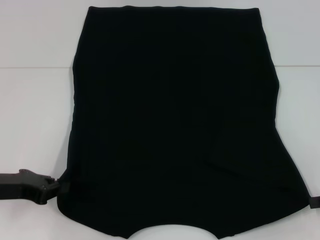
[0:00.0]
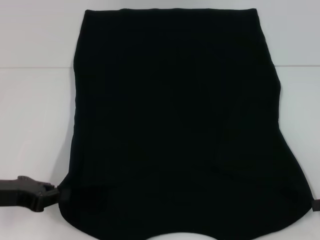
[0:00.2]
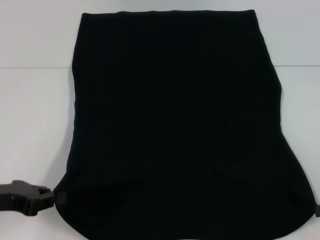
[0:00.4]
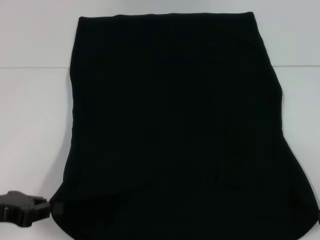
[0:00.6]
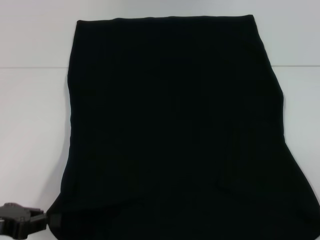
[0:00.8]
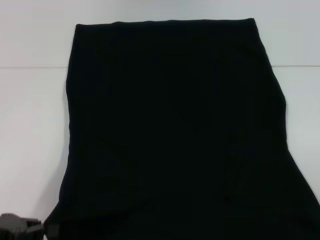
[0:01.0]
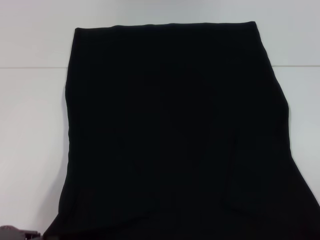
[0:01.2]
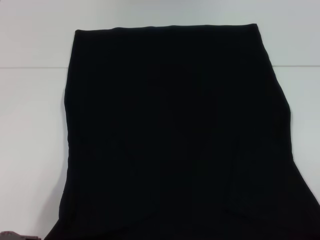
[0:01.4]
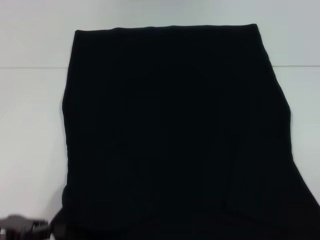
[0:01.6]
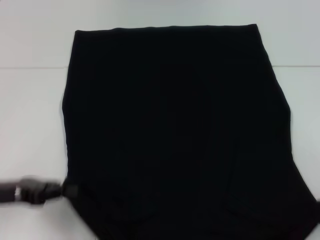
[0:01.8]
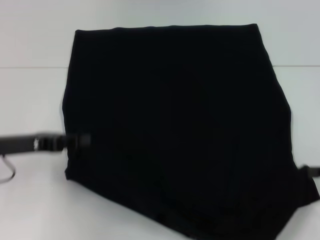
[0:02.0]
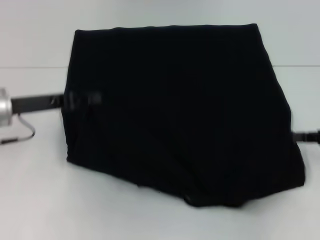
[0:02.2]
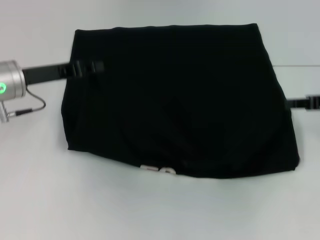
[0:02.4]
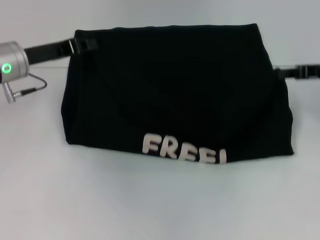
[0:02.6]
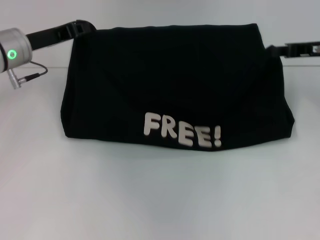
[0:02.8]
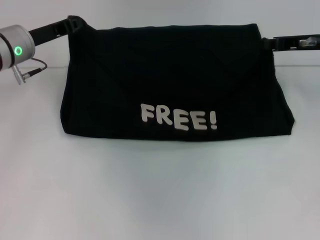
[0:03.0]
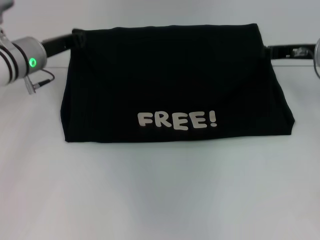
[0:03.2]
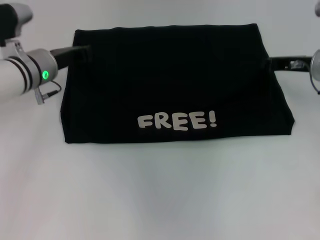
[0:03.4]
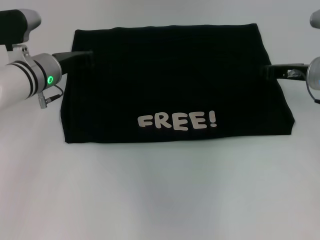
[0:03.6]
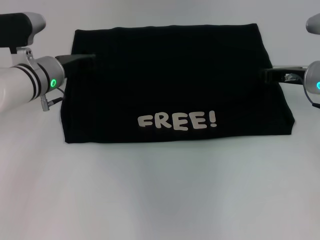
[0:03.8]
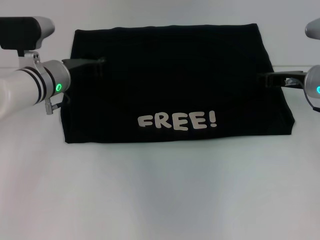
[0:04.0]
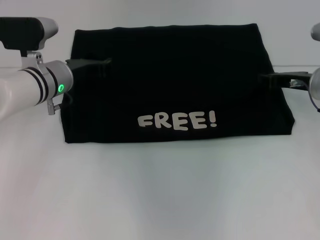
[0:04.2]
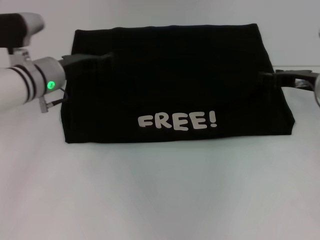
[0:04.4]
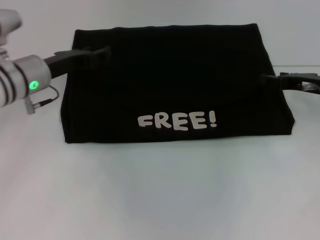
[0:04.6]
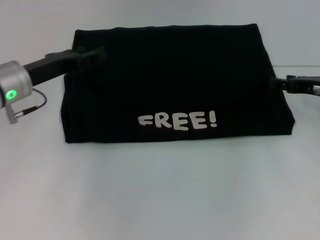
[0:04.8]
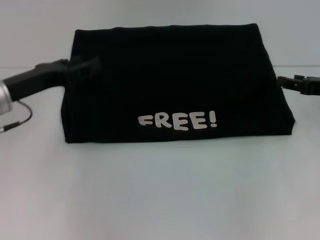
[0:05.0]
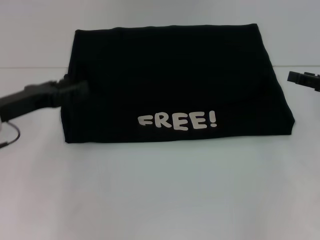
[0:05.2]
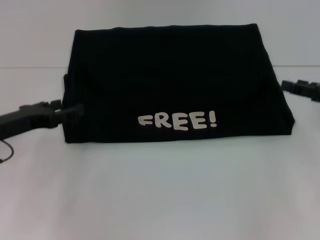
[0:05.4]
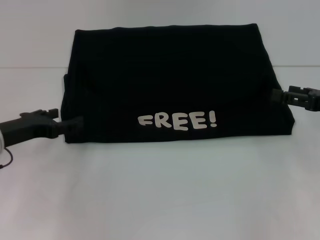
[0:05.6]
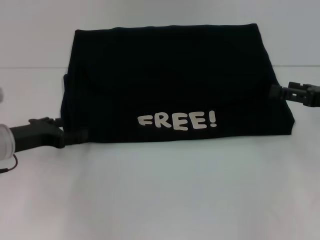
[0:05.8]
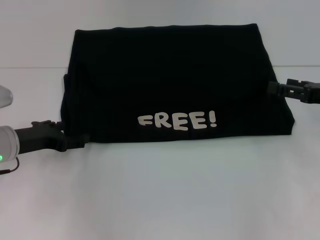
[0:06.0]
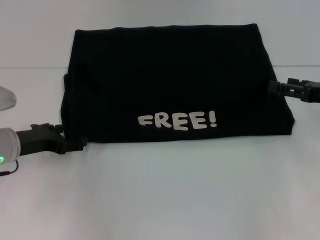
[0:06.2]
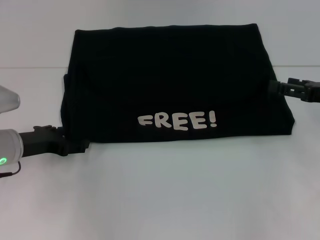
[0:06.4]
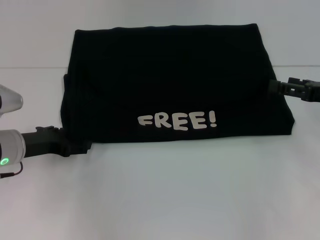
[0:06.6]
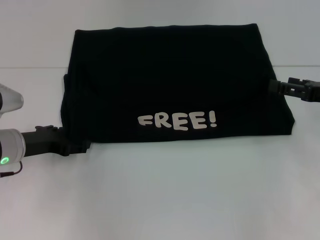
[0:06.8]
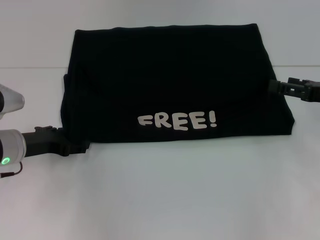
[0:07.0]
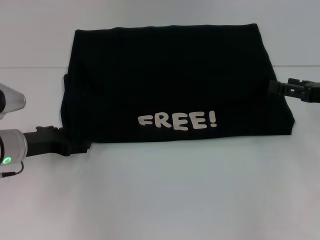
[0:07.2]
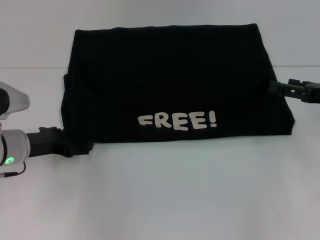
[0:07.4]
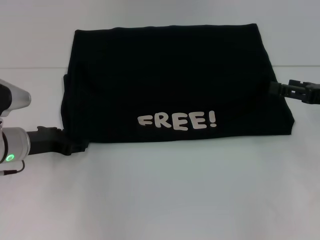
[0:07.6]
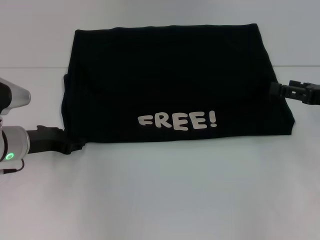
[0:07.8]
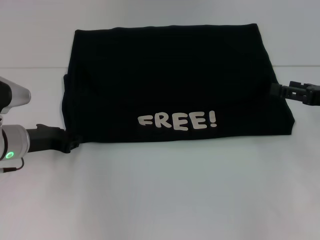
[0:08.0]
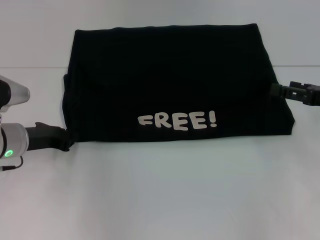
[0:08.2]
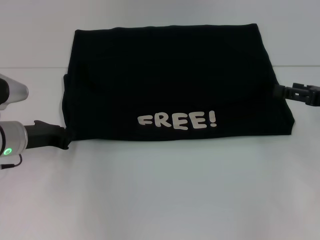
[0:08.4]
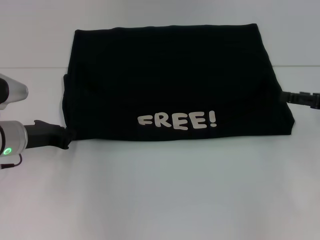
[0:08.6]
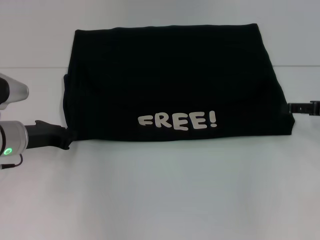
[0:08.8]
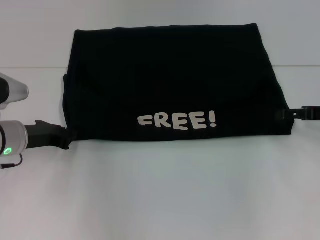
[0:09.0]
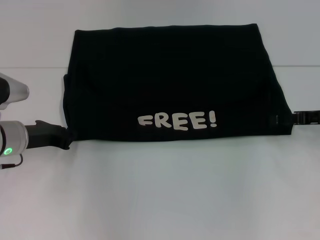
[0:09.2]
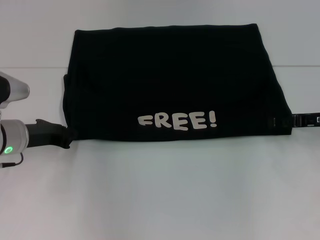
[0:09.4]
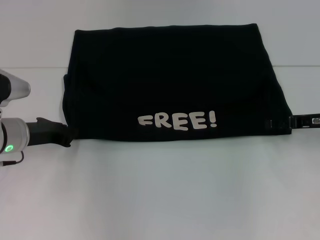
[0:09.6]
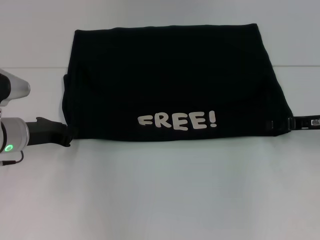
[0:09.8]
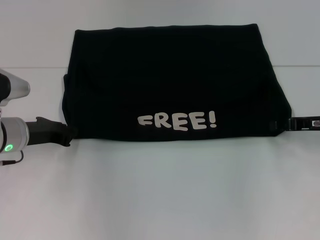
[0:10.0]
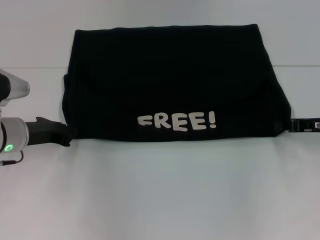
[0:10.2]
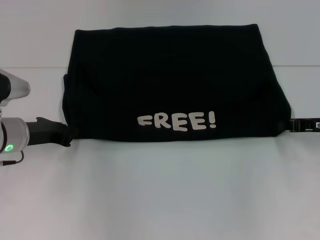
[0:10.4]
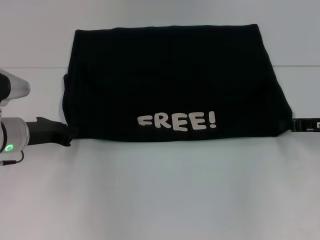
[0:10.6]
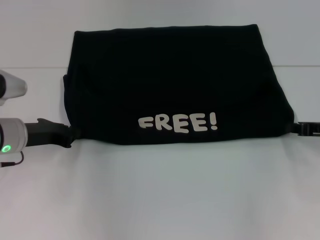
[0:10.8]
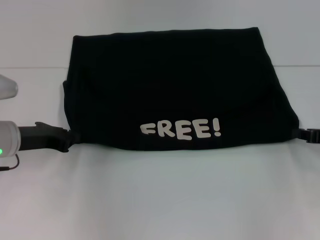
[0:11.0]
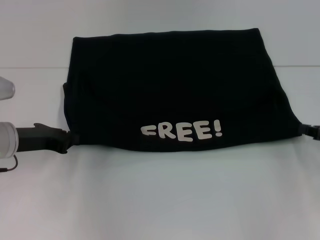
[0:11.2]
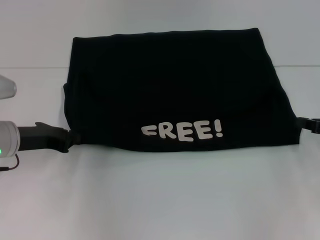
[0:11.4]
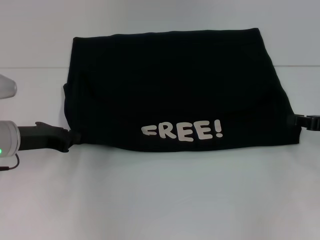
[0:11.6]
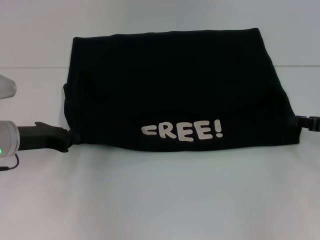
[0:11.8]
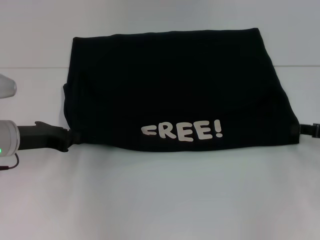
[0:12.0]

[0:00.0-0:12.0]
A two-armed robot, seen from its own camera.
Step, 0.0 to 4.2 s: Fold the clothes with your left hand.
Step, 0.0 to 4.2 s: Fold the clothes with your right hand.
Step, 4.4 to 10.4 s: Pull the clothes with your left hand.
Step, 4.4 to 10.4 s: Pull the clothes with your right hand.
0.0 to 1.6 s: Both grippers travel together backward, some 10 cm.
1.6 to 3.0 s: The right gripper moves forward and to the left, roughly 30 cm. Meanwhile the left gripper goes some 25 cm forward.
3.0 to 4.4 s: The left gripper ends up roughly 5 cm from where it was, and opens. The right gripper shifts roughly 5 cm downward, and opens its fingers.
4.4 to 6.0 s: The left gripper shifts approximately 10 cm backward and to the left, and opens its fingers. The right gripper shifts approximately 10 cm backward and to the right, and opens.
6.0 to 7.6 s: The grippers stay close to where they were, moving slightly.
7.6 to 9.0 s: The left gripper closes.
9.0 to 10.4 s: The right gripper closes up.
10.4 to 12.0 s: The grippers move only a little.

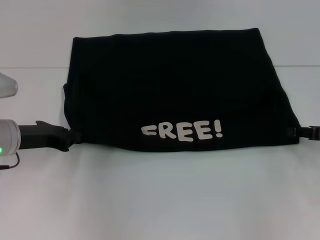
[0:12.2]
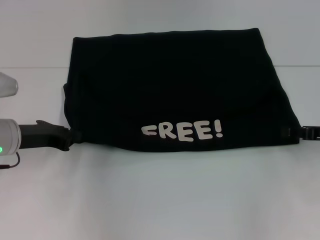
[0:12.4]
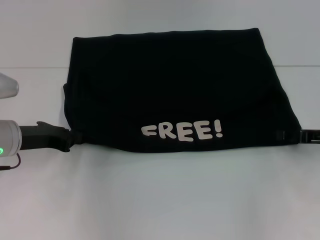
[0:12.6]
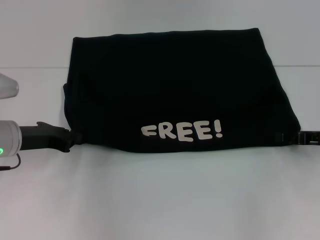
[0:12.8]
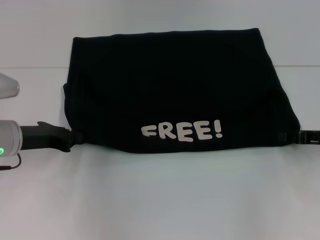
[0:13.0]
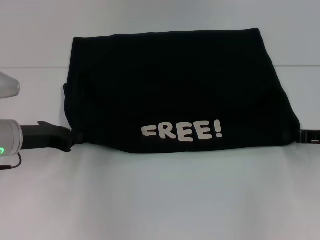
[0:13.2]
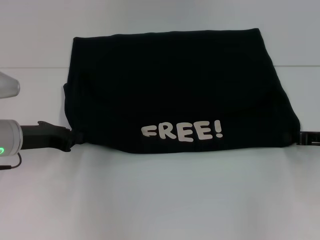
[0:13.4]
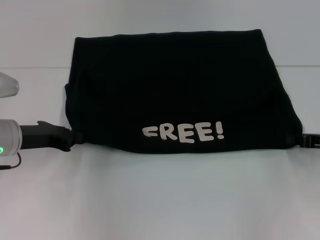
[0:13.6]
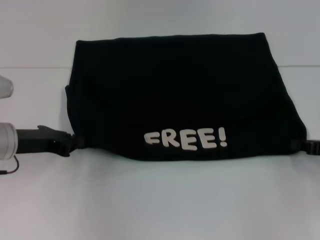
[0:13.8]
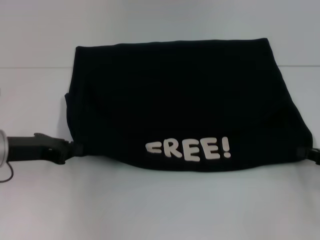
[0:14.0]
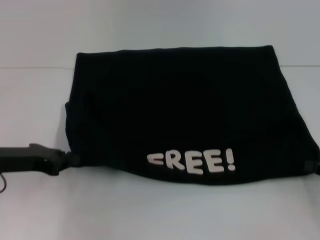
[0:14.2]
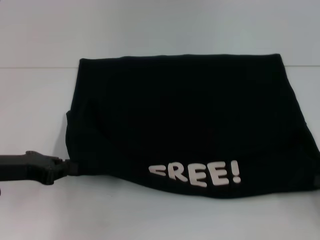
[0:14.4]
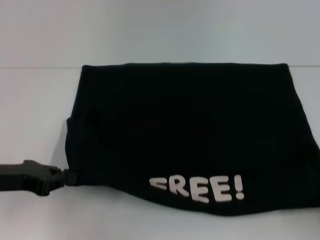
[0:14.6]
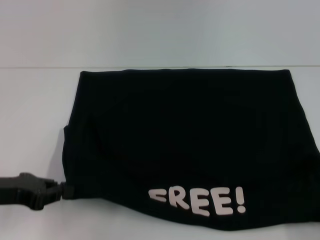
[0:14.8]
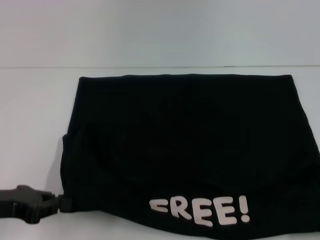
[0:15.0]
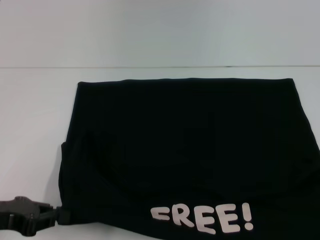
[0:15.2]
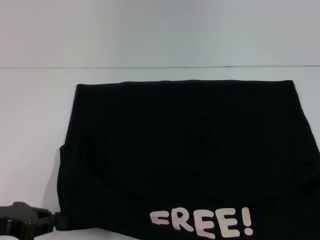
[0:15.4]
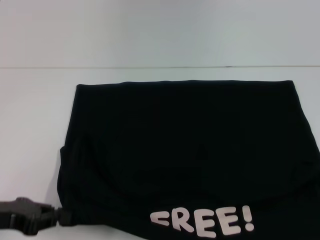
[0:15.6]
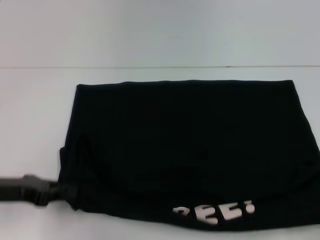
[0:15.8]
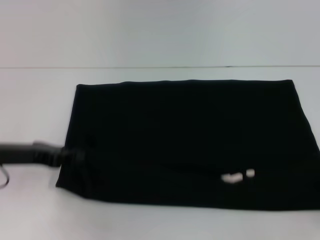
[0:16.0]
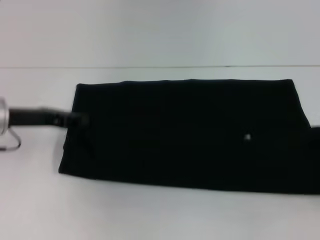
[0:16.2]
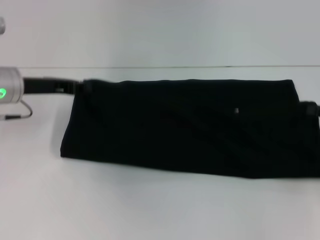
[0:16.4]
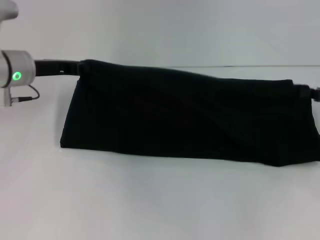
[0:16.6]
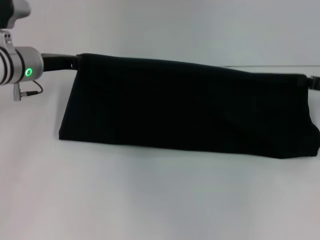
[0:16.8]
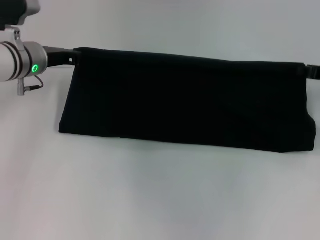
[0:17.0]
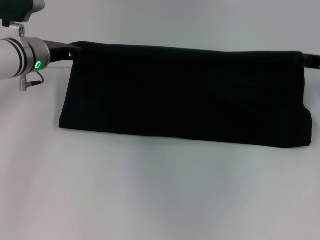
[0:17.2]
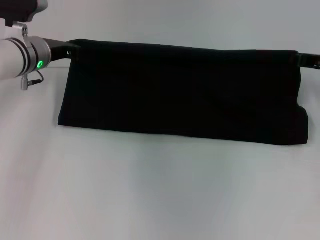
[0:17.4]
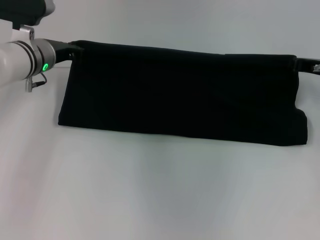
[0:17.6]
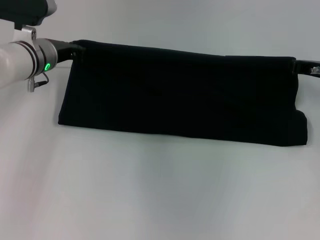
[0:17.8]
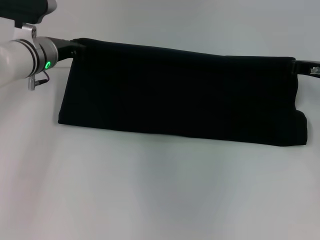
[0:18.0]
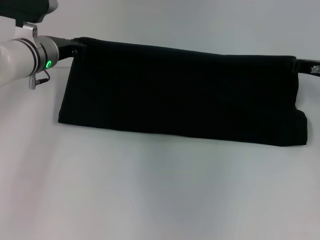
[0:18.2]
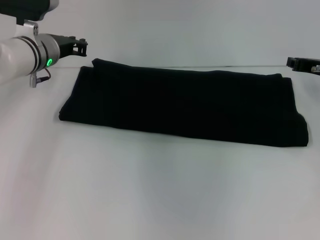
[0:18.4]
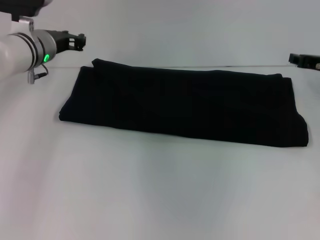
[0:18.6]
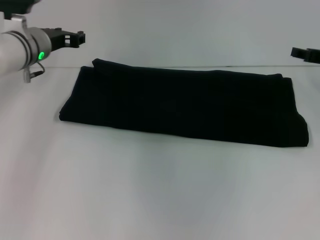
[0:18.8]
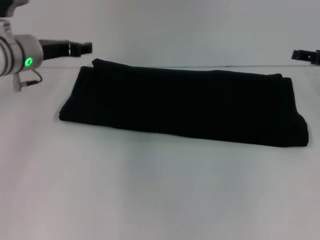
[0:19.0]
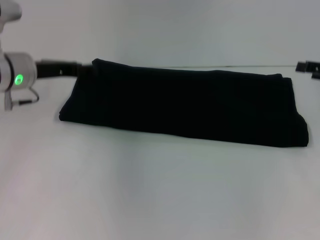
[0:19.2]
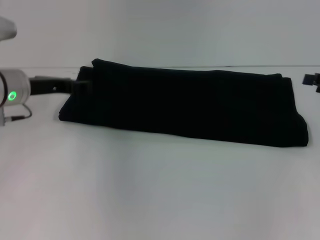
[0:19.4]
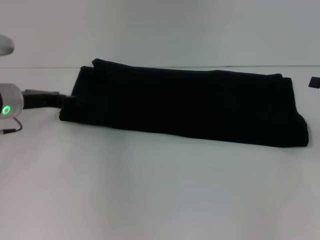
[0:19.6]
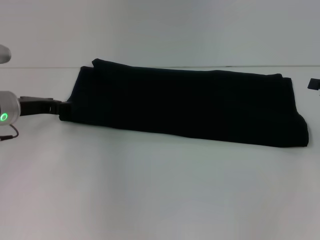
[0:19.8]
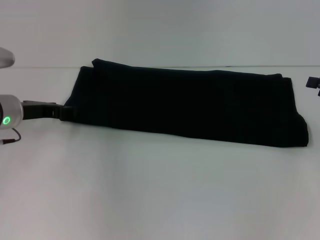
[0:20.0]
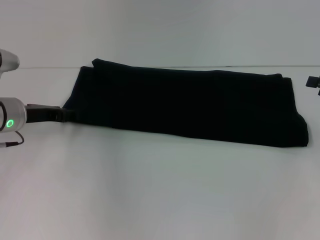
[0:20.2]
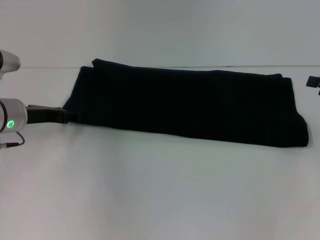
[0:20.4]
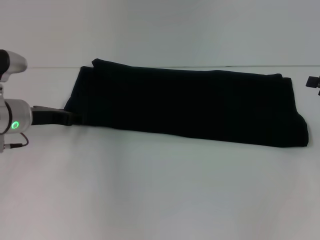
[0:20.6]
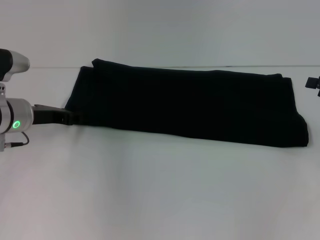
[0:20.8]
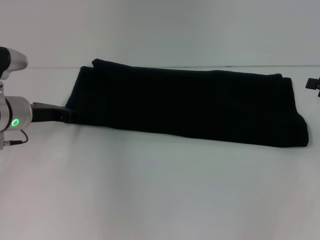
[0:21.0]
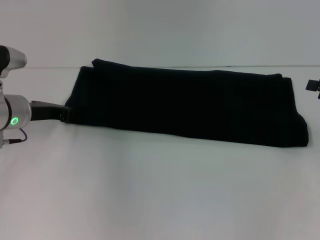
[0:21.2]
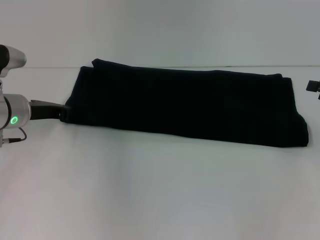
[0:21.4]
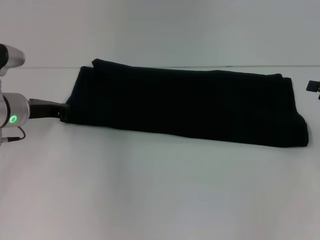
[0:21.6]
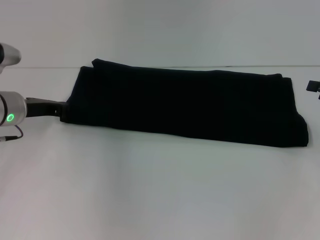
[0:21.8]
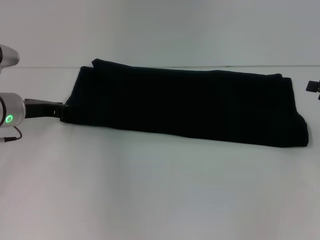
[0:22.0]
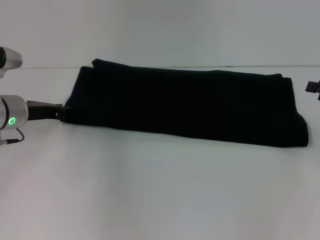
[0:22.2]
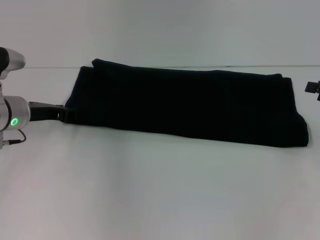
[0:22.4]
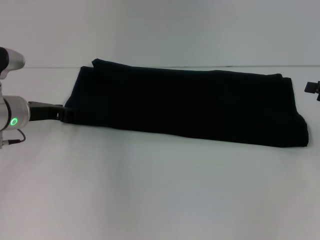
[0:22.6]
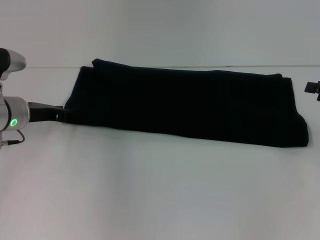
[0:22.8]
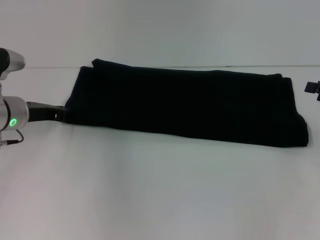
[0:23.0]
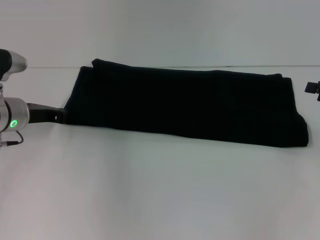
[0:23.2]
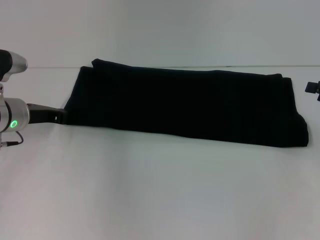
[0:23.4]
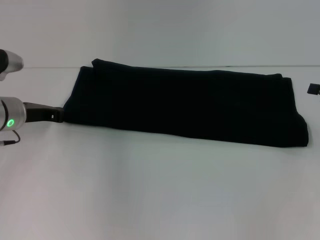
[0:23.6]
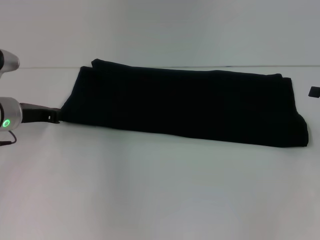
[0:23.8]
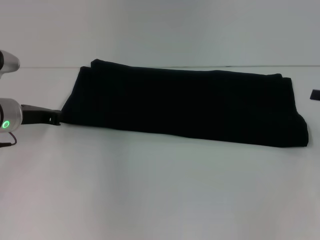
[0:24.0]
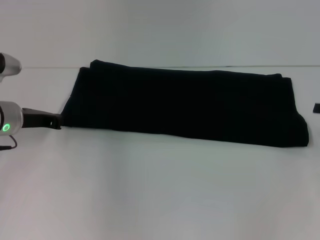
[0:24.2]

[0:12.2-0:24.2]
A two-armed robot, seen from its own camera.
Step, 12.2 to 18.8 s: Fold the clothes with your right hand.
12.2 to 13.8 s: The grippers make only small movements.
13.8 to 15.2 s: The left gripper moves backward, approximately 10 cm. The right gripper goes about 20 cm backward.
15.2 to 16.6 s: The grippers both shift forward by roughly 20 cm.
16.6 to 18.2 s: The left gripper ends up about 5 cm from where it was; the right gripper heads forward and to the left, covering some 10 cm.
18.2 to 19.8 s: The left gripper goes roughly 10 cm backward and to the left, and opens, while the right gripper heads backward and to the right, covering approximately 10 cm, and opens its fingers.
19.8 to 21.2 s: The left gripper closes up.
21.2 to 22.6 s: Both grippers stay put.
22.6 to 24.2 s: The left gripper closes up.
